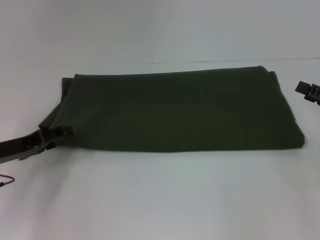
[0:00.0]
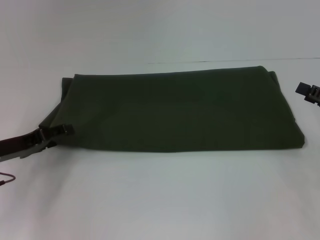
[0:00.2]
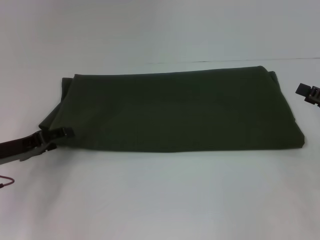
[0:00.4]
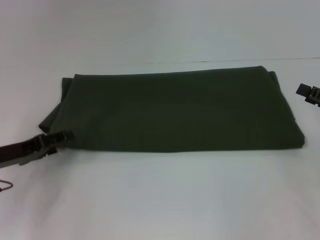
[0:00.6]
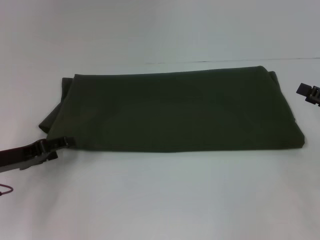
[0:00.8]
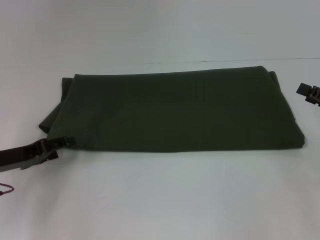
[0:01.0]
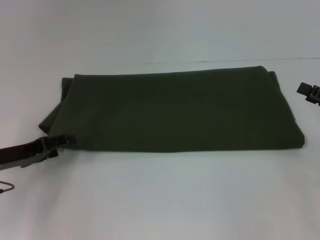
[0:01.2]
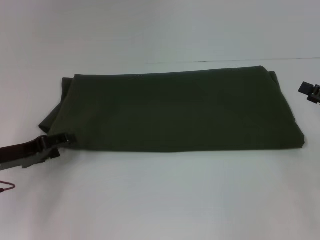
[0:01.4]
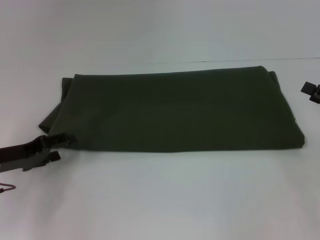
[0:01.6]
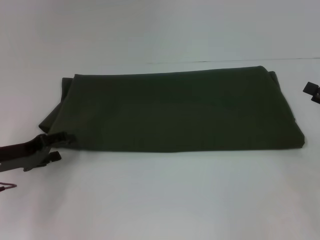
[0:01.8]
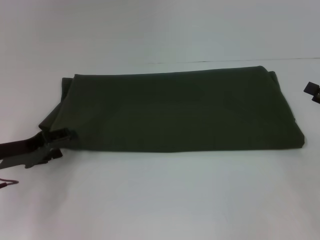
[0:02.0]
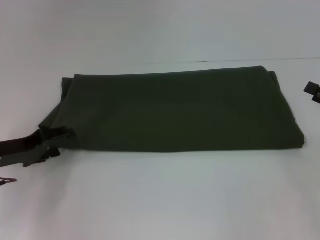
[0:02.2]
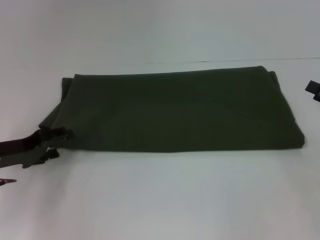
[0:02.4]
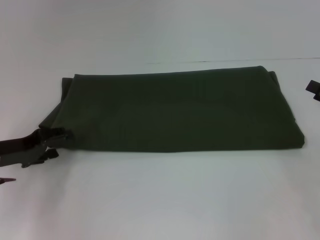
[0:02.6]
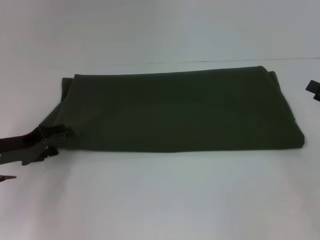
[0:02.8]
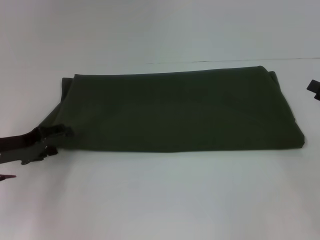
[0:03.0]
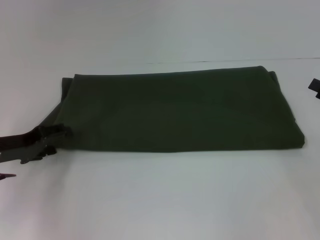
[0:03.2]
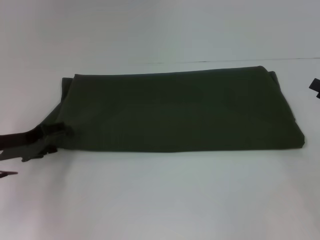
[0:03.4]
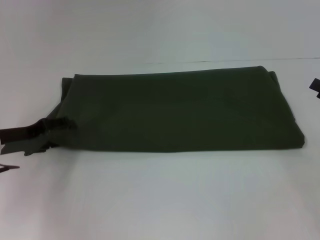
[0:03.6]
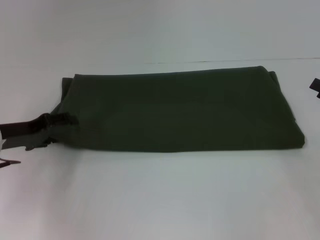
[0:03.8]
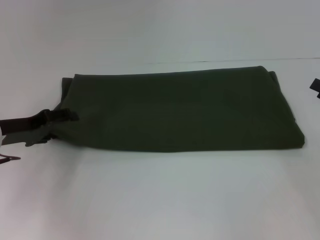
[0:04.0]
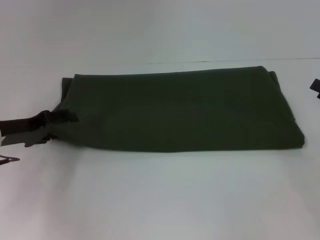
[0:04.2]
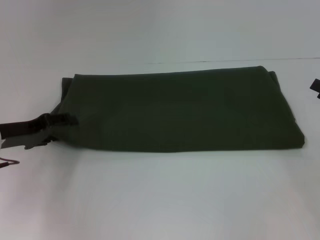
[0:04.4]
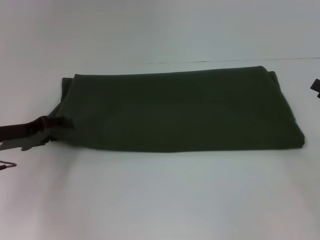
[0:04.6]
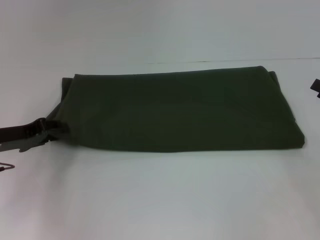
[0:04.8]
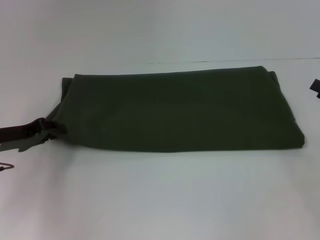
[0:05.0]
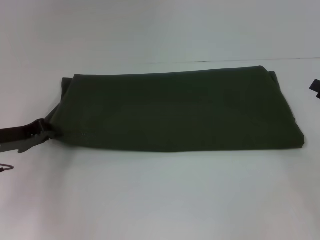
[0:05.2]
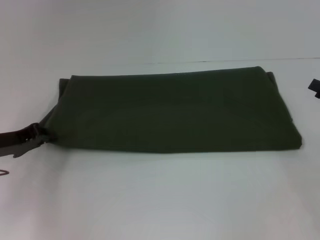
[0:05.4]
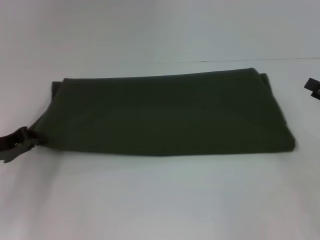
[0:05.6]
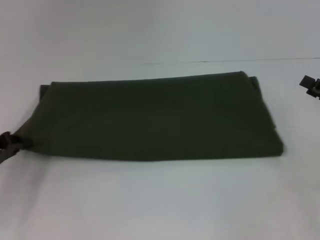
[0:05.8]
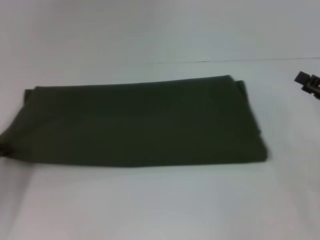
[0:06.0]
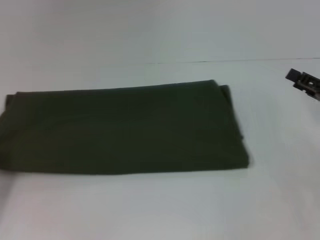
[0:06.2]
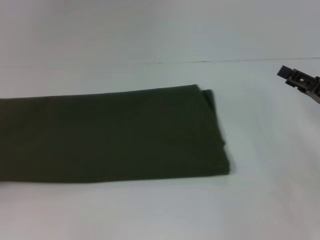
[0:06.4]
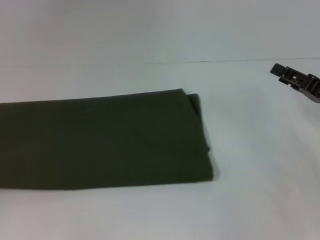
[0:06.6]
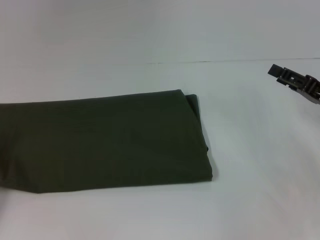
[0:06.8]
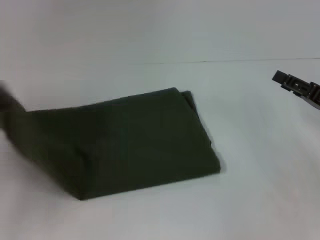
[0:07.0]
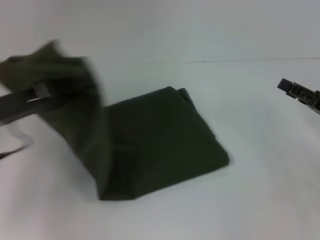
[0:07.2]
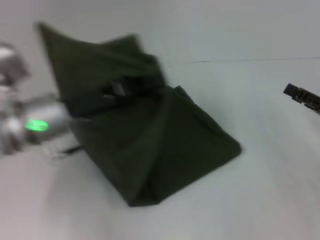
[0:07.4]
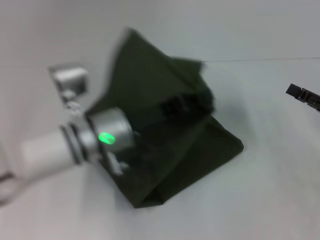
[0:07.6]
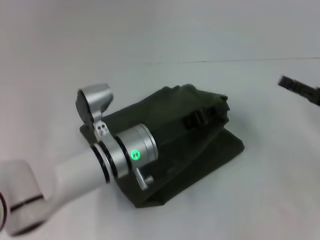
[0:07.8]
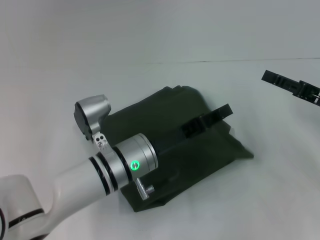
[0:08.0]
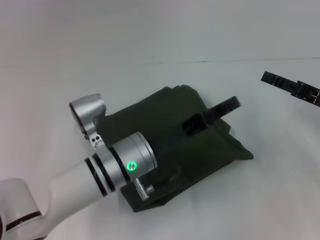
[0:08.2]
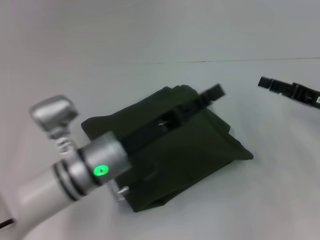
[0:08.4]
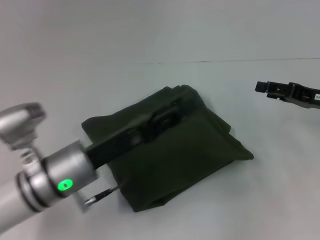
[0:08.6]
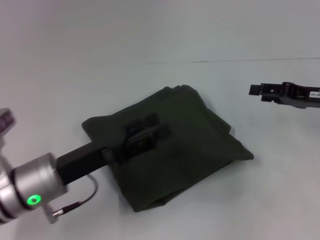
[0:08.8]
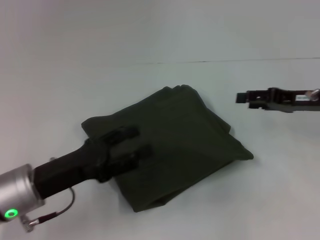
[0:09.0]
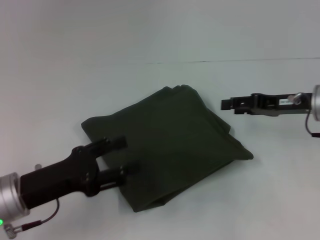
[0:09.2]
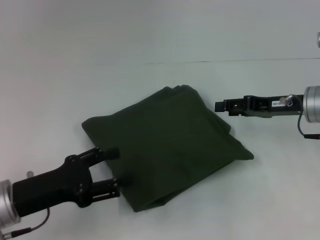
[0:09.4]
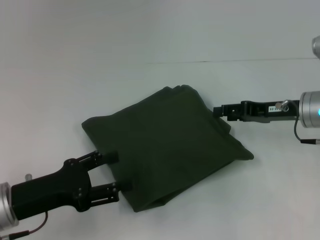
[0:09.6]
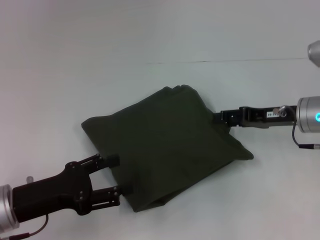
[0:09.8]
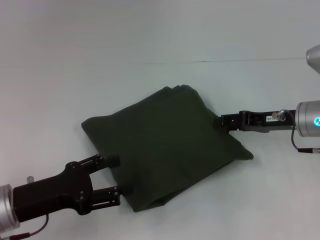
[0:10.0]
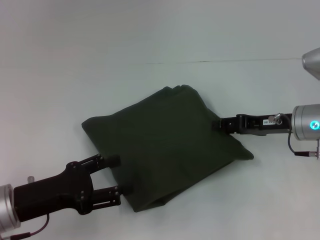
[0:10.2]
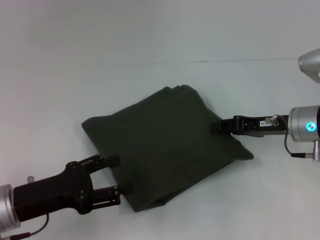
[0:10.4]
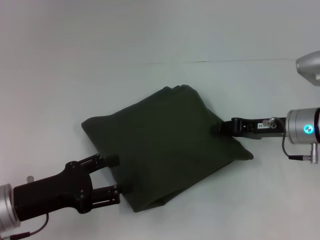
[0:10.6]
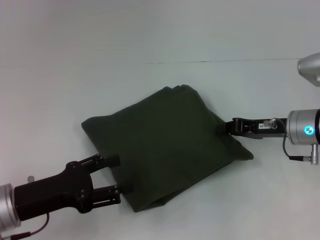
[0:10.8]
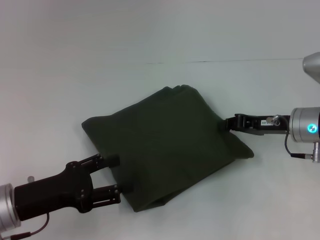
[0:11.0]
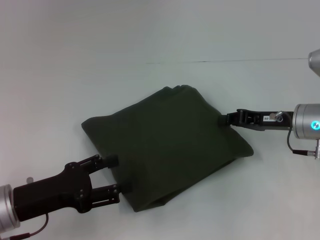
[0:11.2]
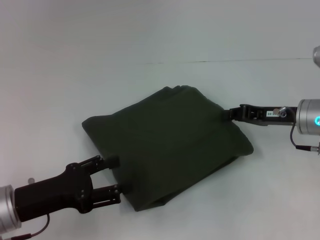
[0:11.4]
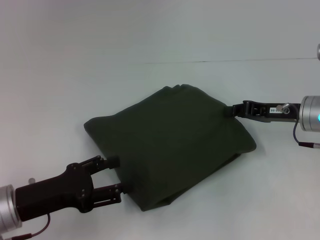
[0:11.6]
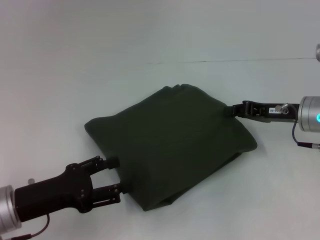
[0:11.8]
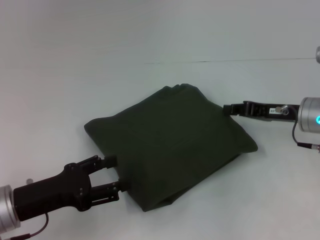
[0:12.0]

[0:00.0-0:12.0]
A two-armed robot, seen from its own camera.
Step, 0:00.0 to 0:07.8: Fold the clothes with your left hand.
0:00.0 to 0:04.4: There are only small adjustments of the grippers.
0:04.4 to 0:06.0: The left gripper moves backward and to the left, roughly 10 cm, and closes.
0:06.0 to 0:07.6: The left gripper heads to the right, covering roughly 25 cm.
0:07.6 to 0:09.0: The left gripper moves to the left and backward, some 15 cm, and opens. Meanwhile the right gripper goes about 10 cm forward.
0:09.0 to 0:10.4: The right gripper goes roughly 5 cm to the left.
0:10.4 to 0:12.0: The right gripper closes its fingers.

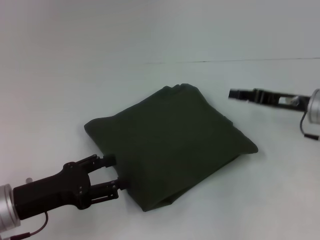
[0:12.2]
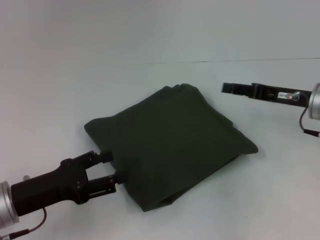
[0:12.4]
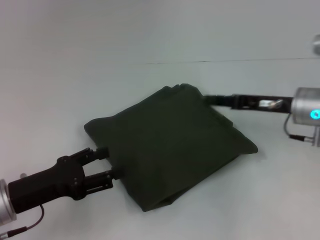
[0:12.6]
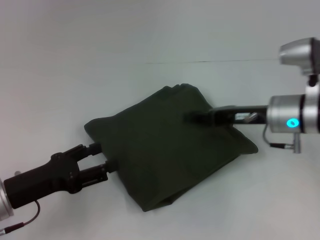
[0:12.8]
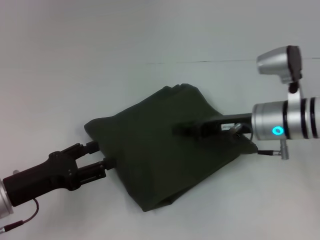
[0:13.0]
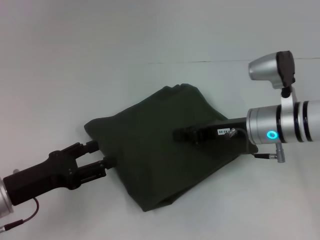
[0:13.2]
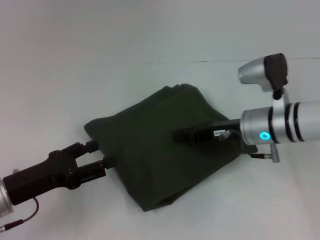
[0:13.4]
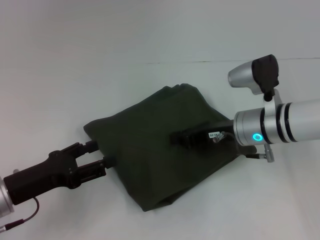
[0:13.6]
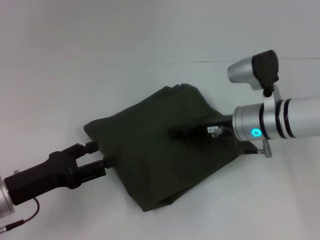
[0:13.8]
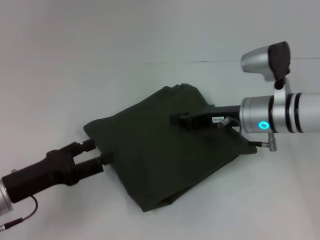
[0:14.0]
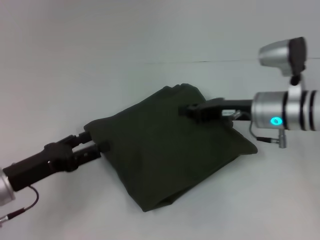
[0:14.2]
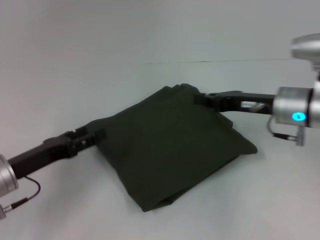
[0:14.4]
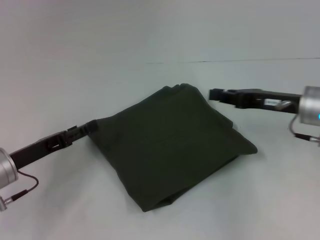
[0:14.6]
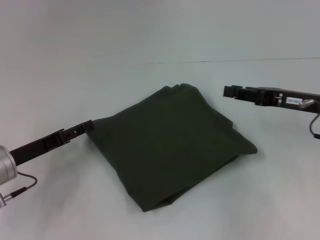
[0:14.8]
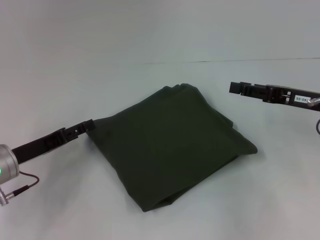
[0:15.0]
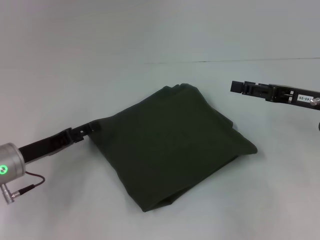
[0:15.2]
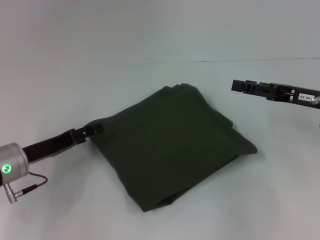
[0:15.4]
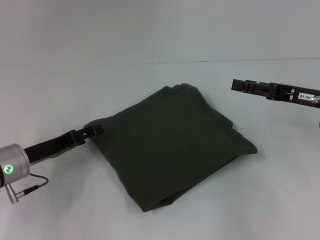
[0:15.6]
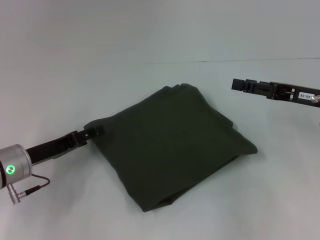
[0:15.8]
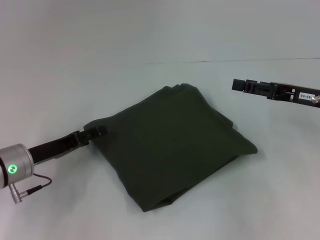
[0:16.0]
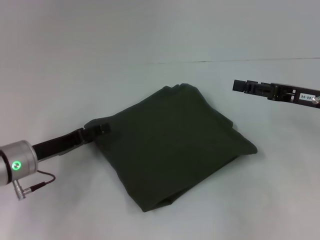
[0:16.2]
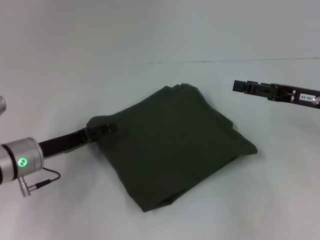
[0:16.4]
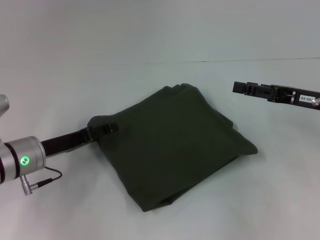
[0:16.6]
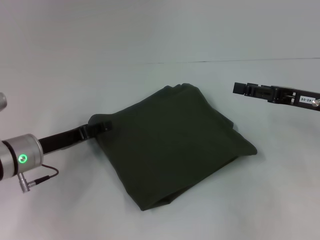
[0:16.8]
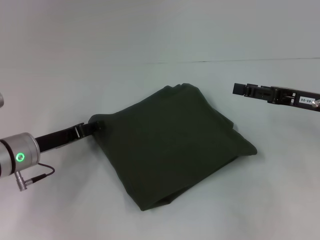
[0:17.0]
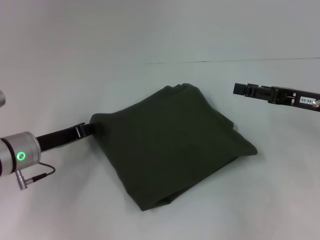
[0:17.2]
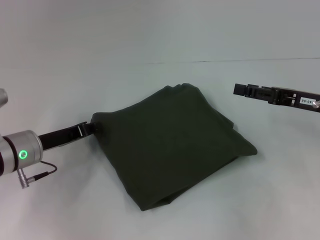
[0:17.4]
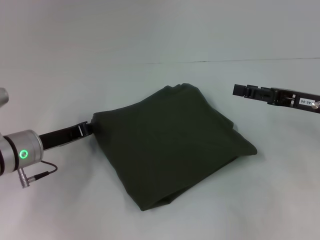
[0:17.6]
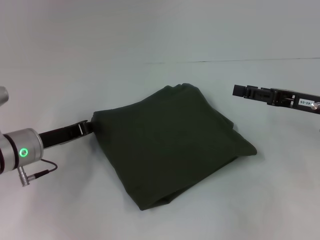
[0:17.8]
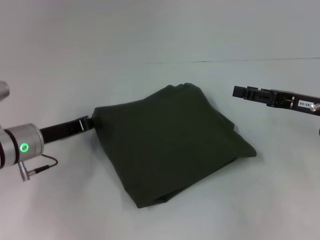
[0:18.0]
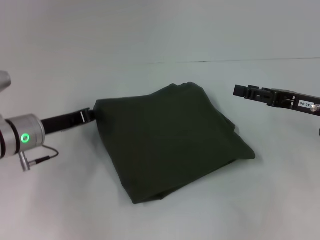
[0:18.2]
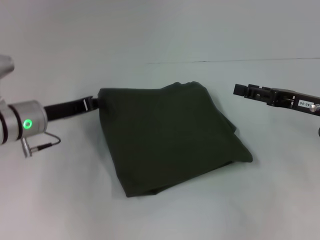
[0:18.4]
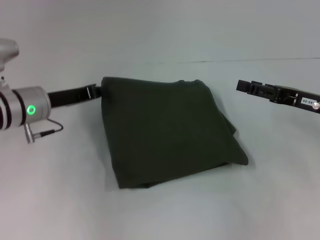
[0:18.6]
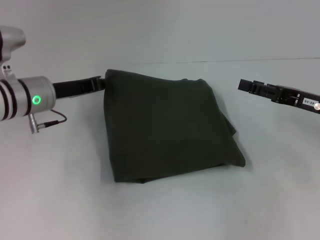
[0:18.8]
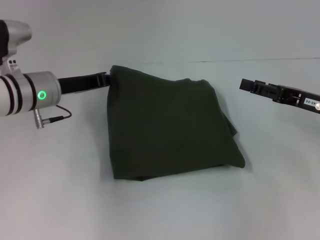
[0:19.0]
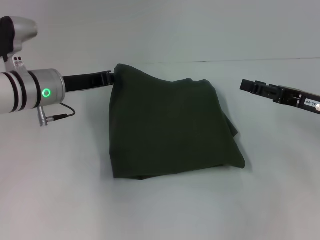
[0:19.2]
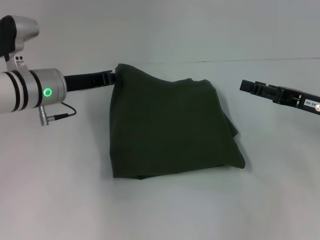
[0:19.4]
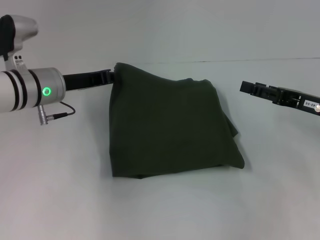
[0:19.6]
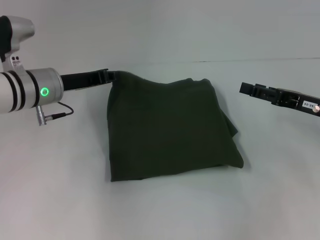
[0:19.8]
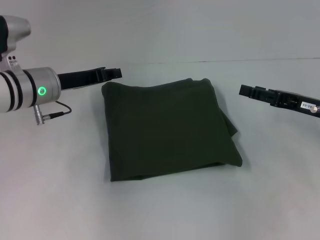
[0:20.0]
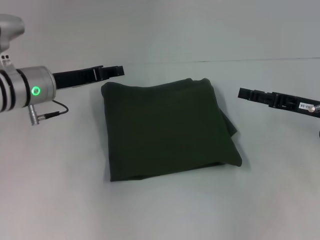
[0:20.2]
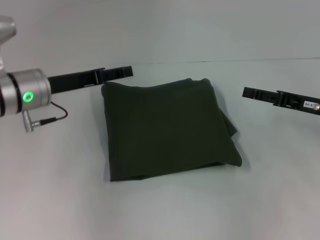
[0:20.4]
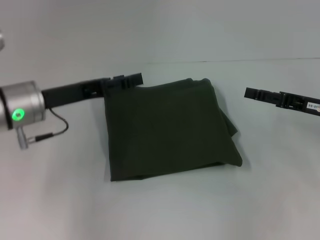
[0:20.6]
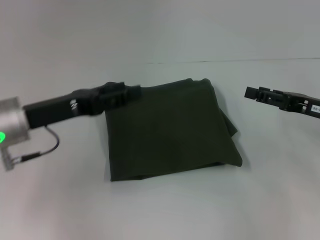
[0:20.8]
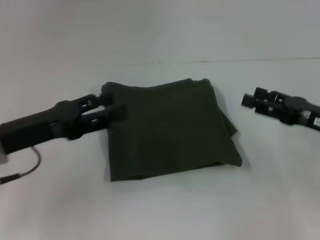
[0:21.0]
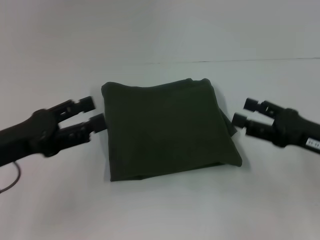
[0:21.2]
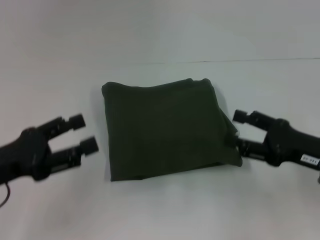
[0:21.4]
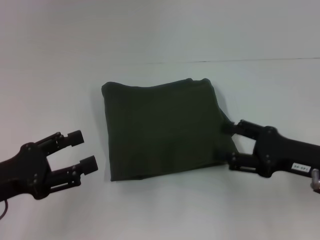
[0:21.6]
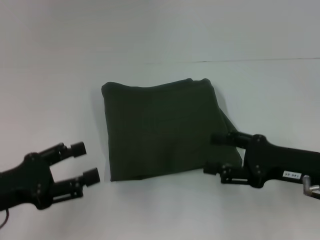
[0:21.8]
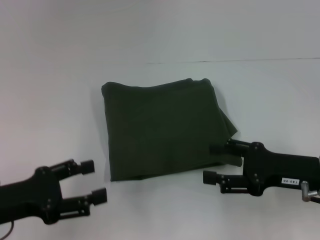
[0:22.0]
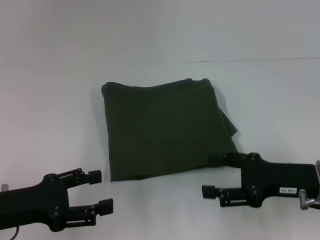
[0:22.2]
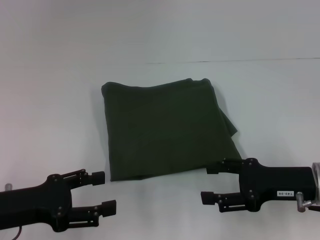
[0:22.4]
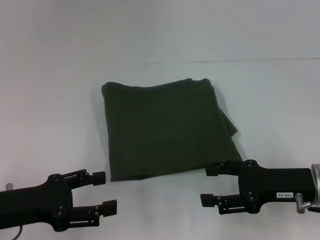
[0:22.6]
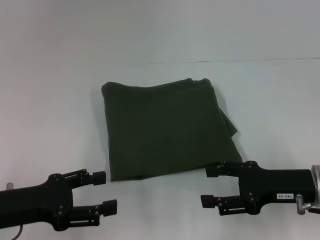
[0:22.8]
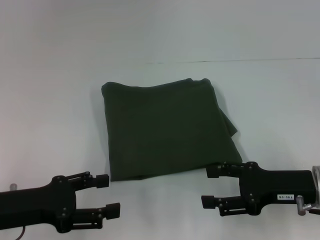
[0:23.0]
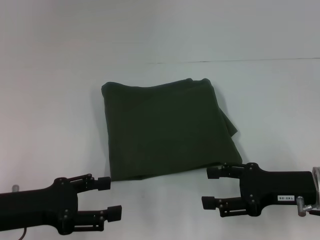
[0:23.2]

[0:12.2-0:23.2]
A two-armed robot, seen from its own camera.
0:12.2 to 0:13.8: The right gripper is displaced to the left by roughly 10 cm, and opens and closes again.
0:13.8 to 0:15.4: The left gripper travels forward by about 5 cm. The right gripper heads to the right, covering some 15 cm, and opens.
0:15.4 to 0:17.0: The grippers stay close to where they were, moving slightly.
0:17.0 to 0:18.4: The left gripper shifts by about 5 cm, and closes its fingers.
0:18.4 to 0:20.0: The left gripper shifts by roughly 5 cm.
0:20.0 to 0:21.6: The left gripper moves backward and to the left, about 20 cm, and opens. The right gripper goes approximately 5 cm backward.
0:21.6 to 0:23.2: The grippers move only a little.
